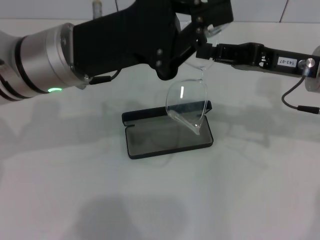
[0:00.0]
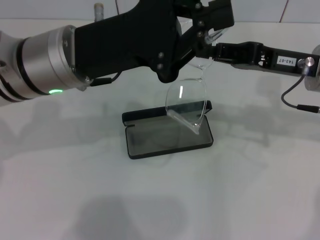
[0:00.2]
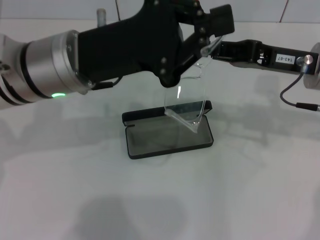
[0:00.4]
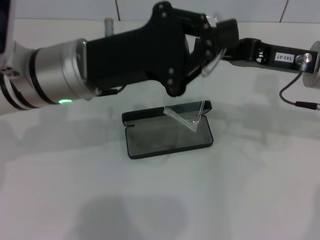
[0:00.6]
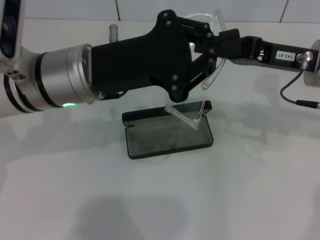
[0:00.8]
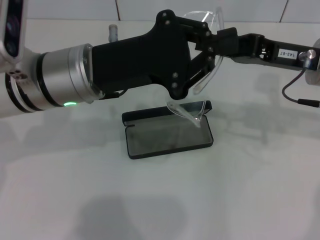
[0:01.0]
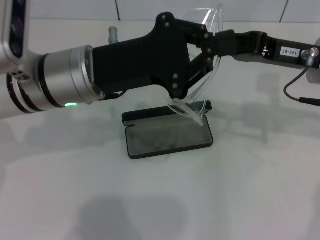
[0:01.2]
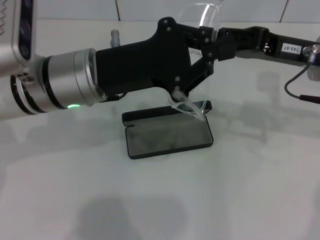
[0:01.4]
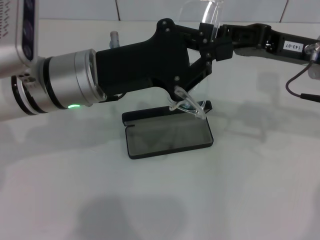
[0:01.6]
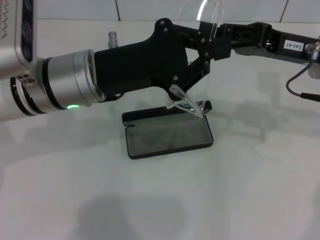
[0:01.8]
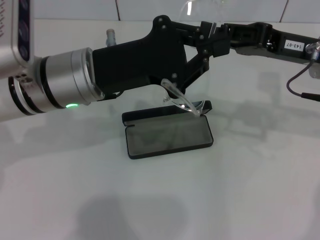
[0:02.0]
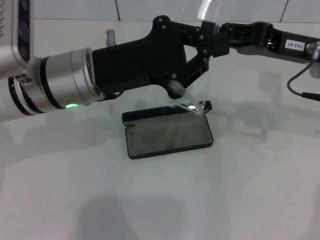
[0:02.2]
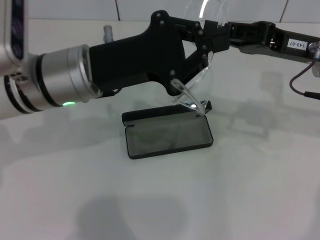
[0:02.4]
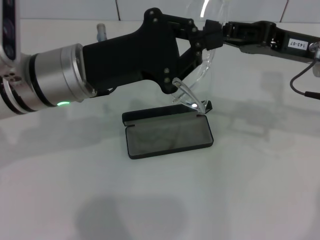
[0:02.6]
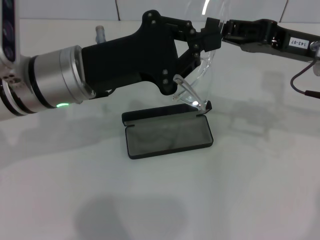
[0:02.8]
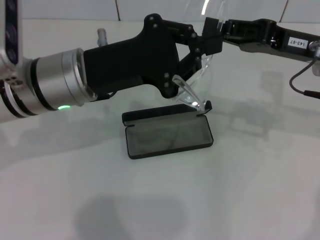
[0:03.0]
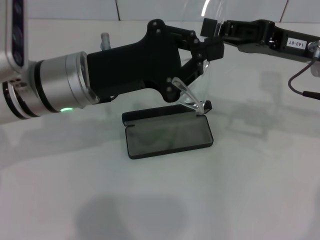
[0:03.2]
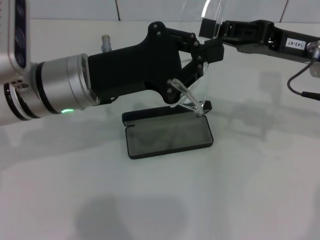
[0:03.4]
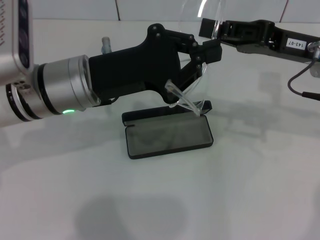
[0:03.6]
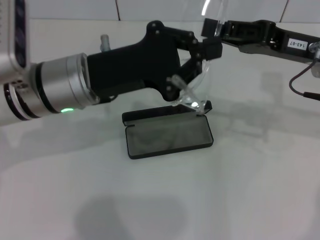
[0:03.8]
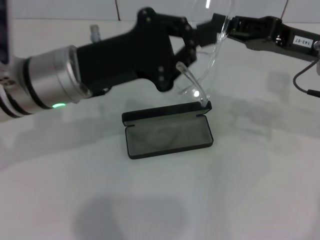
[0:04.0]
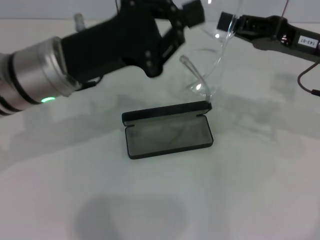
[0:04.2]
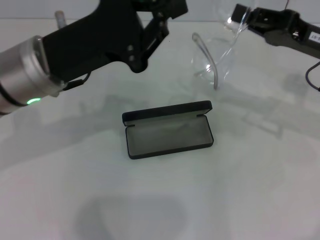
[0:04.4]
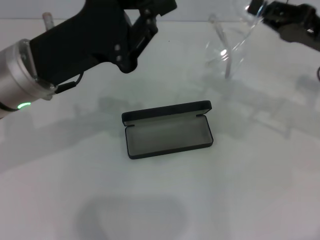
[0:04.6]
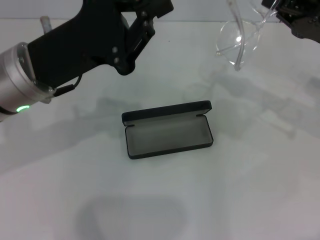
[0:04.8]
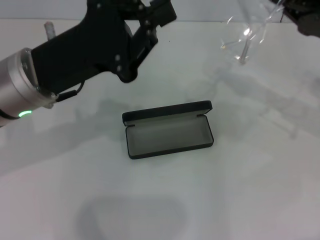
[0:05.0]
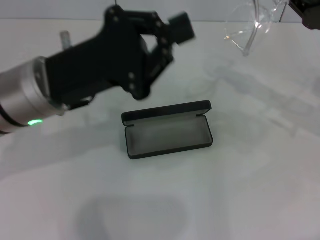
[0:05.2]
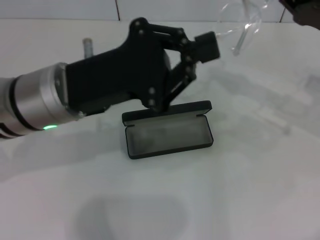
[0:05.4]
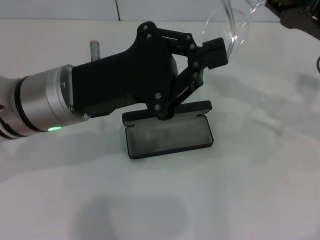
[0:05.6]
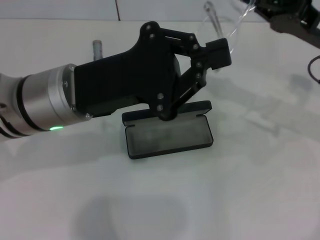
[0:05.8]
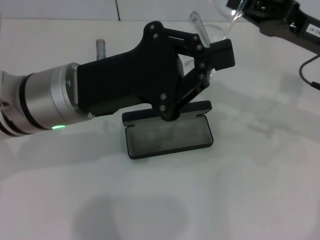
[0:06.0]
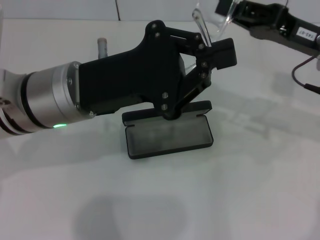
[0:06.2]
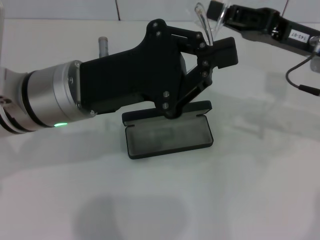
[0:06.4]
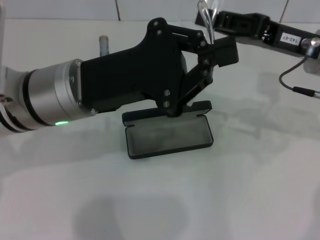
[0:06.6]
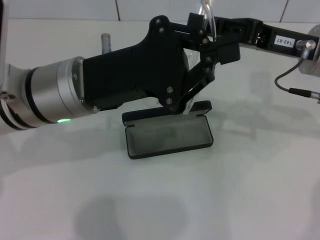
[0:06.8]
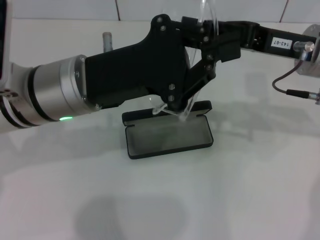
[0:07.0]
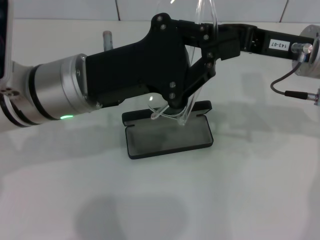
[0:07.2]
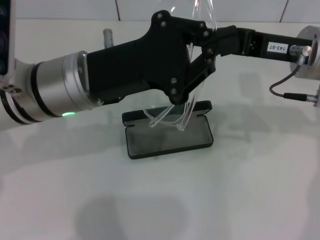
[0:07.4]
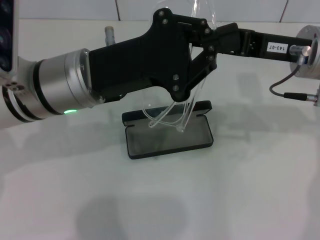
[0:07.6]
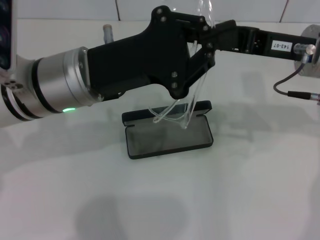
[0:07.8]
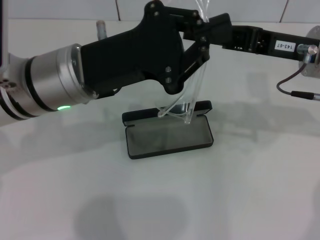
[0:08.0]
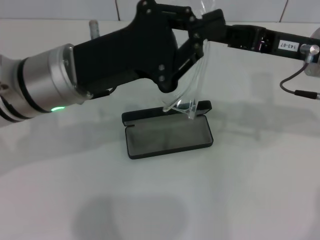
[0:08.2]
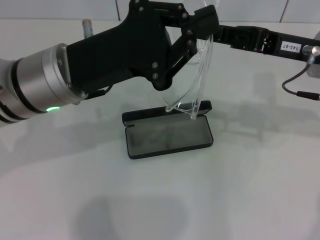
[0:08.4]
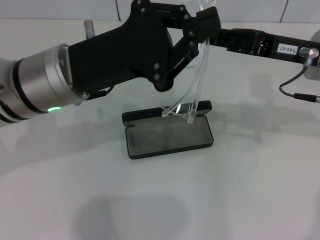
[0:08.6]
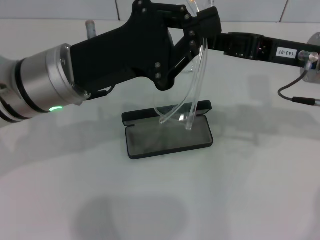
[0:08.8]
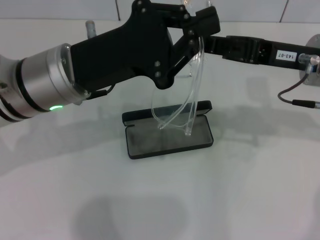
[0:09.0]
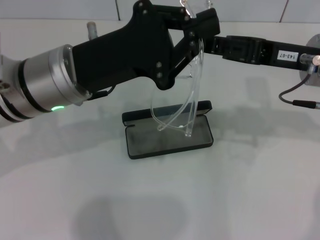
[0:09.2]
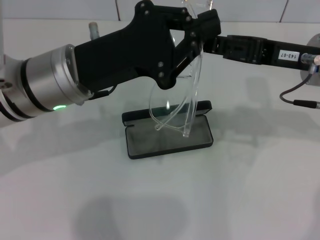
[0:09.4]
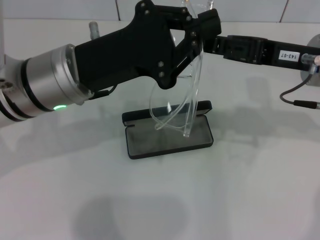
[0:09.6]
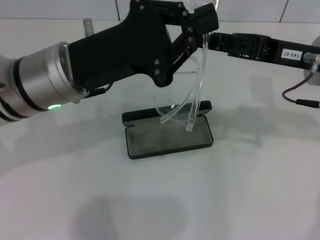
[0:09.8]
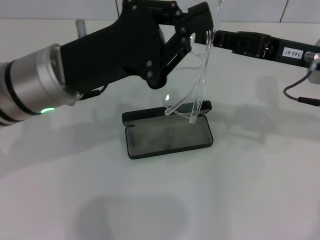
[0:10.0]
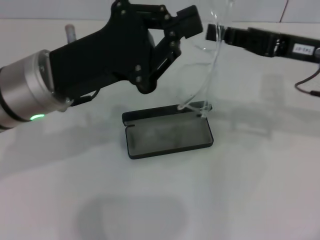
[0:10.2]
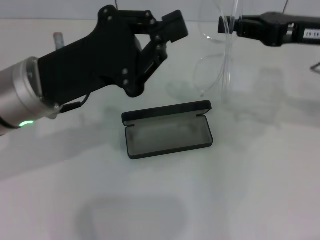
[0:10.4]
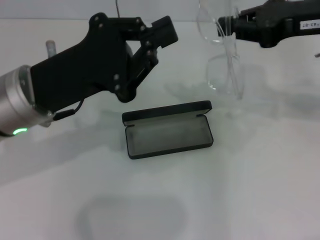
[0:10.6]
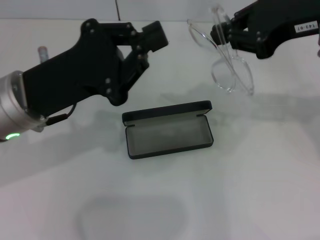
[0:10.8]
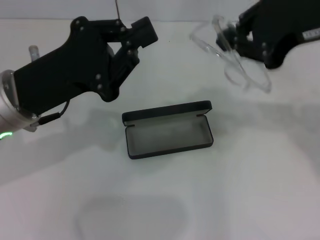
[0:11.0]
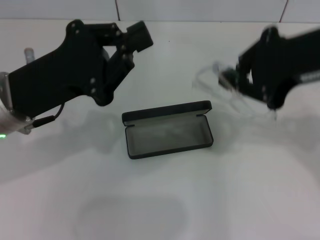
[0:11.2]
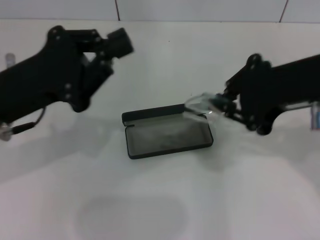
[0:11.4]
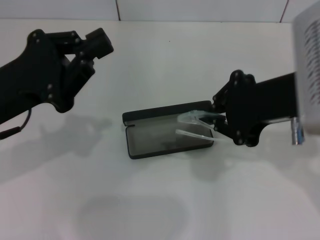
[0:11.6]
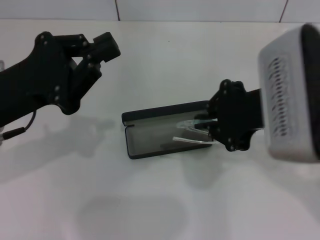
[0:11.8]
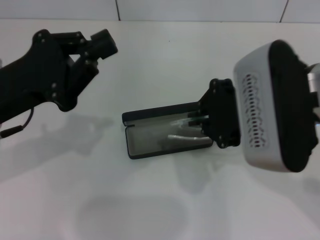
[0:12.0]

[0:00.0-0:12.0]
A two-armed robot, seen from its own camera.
Step, 0:00.0 to 0:09.8: Fold the frame with your left hand.
0:01.6 to 0:03.0: The two grippers keep their place.
0:06.0 to 0:07.6: The right gripper shifts approximately 5 cm to the left.
0:09.0 to 0:10.4: The right gripper changes place by about 5 cm.
0:10.4 to 0:12.0: The right gripper moves to the left and backward, about 15 cm, while the left gripper is displaced to the left by approximately 5 cm.

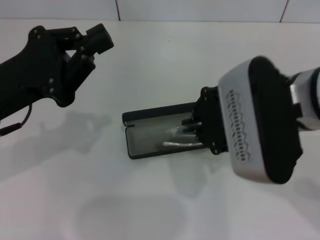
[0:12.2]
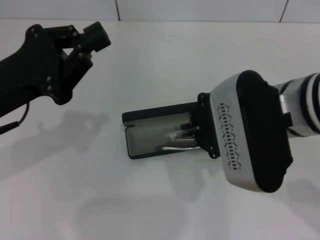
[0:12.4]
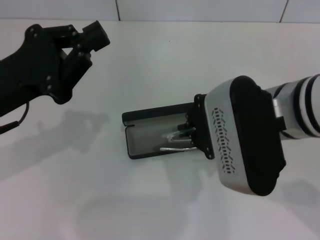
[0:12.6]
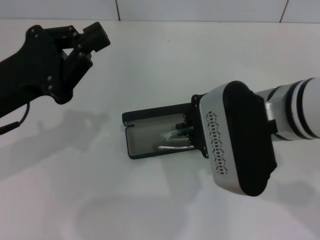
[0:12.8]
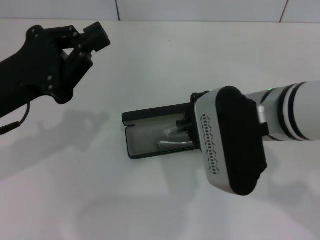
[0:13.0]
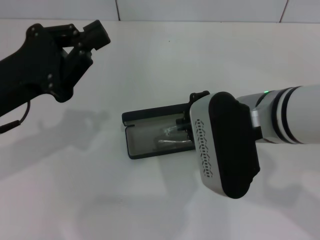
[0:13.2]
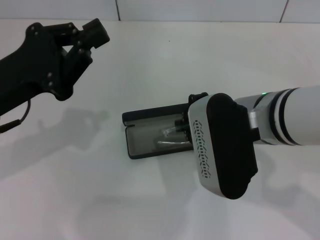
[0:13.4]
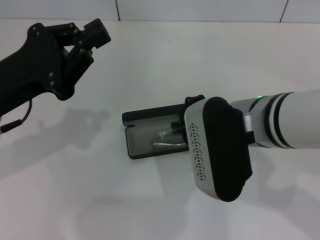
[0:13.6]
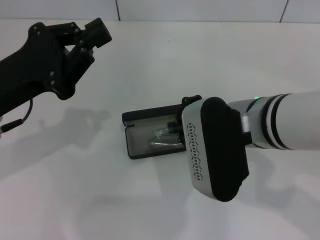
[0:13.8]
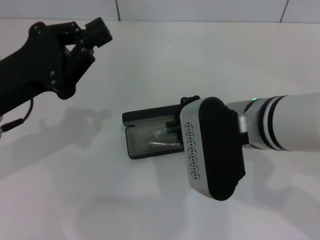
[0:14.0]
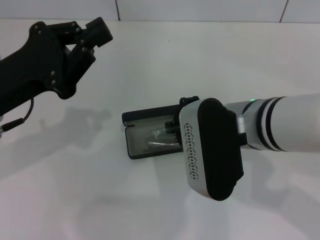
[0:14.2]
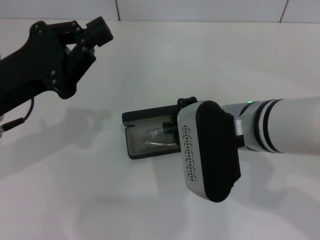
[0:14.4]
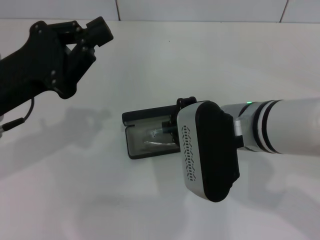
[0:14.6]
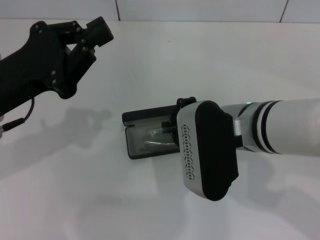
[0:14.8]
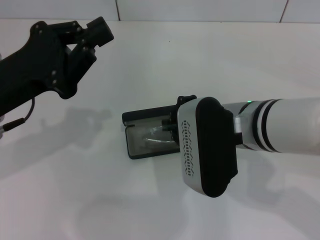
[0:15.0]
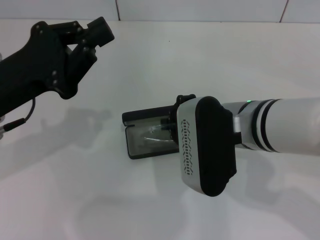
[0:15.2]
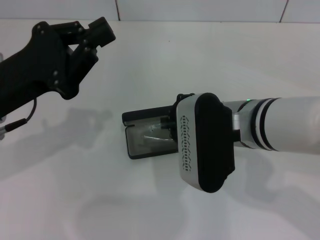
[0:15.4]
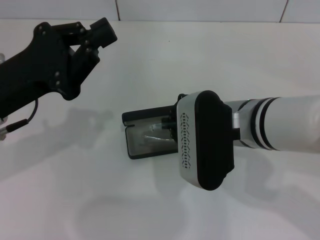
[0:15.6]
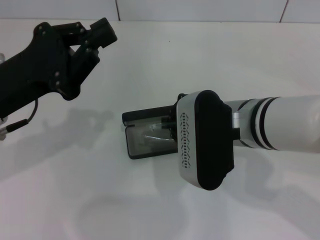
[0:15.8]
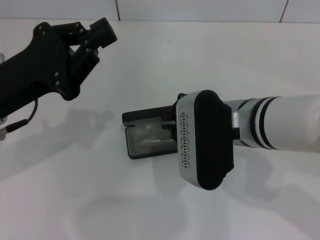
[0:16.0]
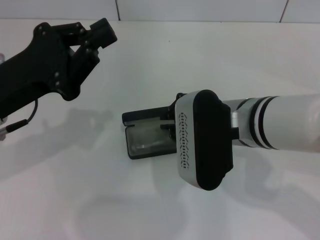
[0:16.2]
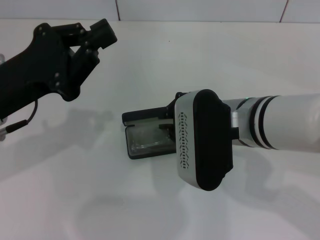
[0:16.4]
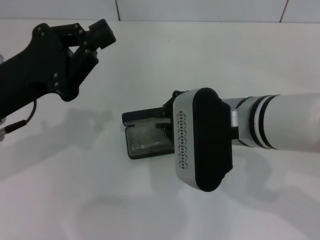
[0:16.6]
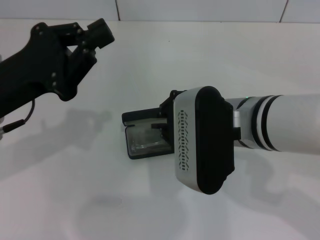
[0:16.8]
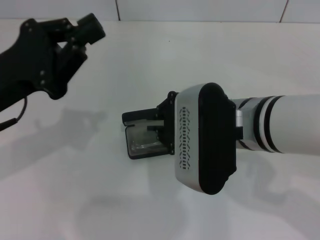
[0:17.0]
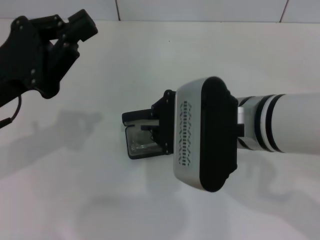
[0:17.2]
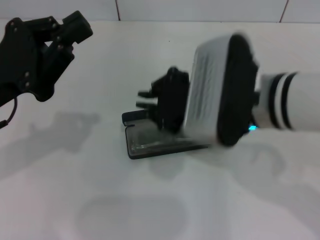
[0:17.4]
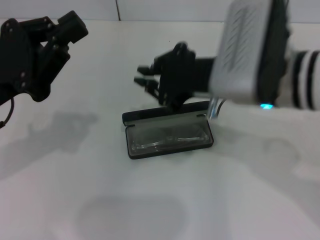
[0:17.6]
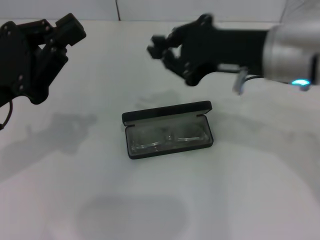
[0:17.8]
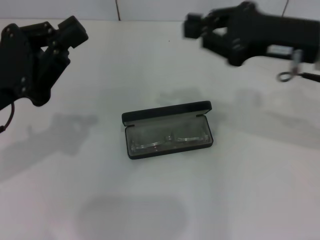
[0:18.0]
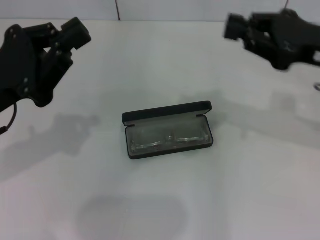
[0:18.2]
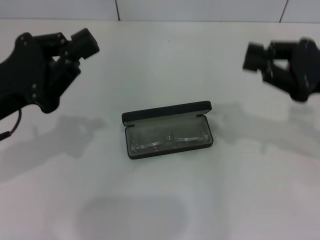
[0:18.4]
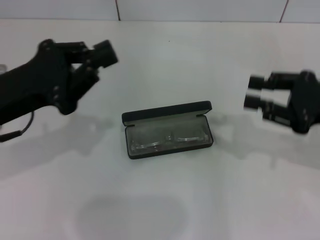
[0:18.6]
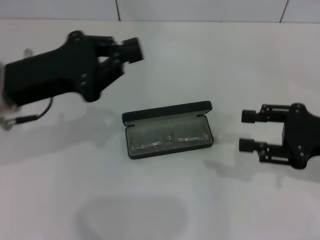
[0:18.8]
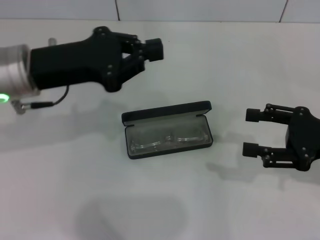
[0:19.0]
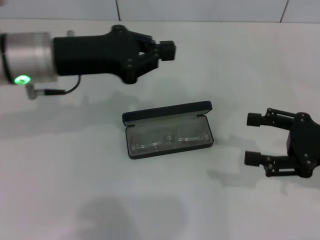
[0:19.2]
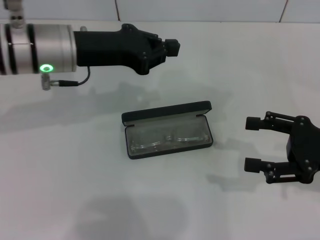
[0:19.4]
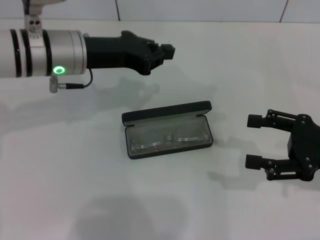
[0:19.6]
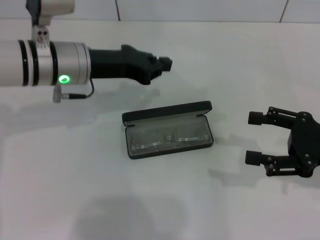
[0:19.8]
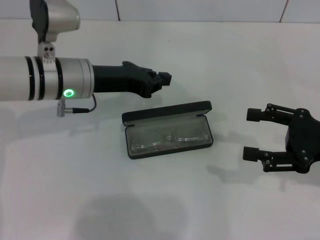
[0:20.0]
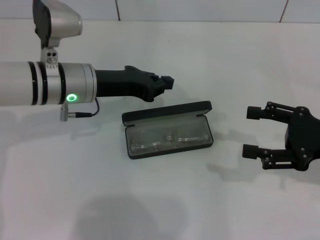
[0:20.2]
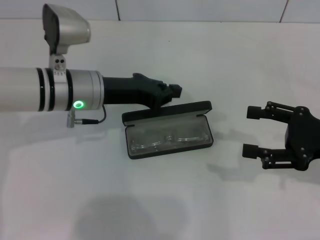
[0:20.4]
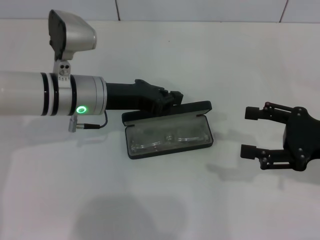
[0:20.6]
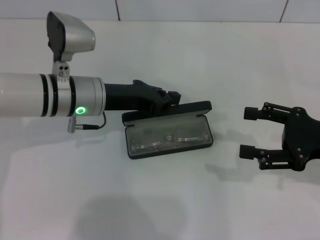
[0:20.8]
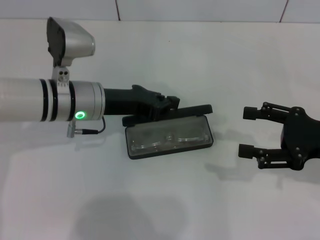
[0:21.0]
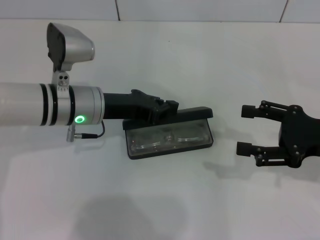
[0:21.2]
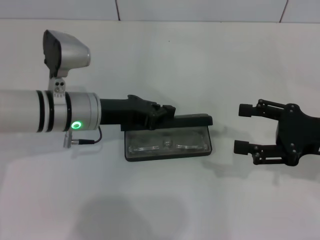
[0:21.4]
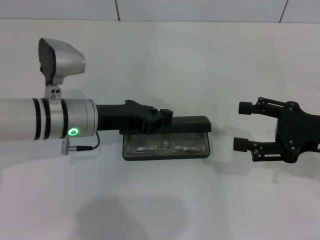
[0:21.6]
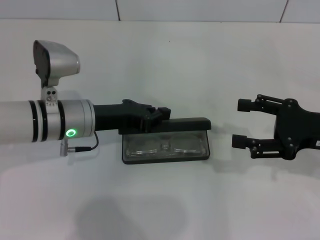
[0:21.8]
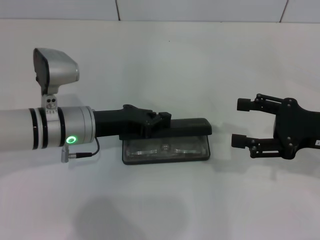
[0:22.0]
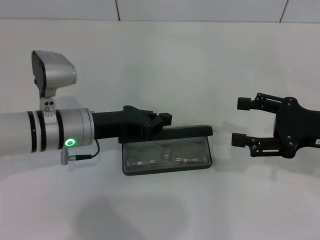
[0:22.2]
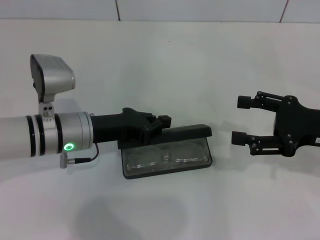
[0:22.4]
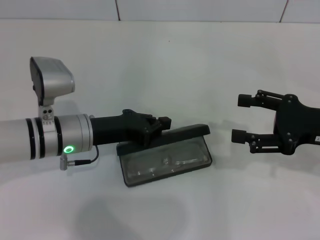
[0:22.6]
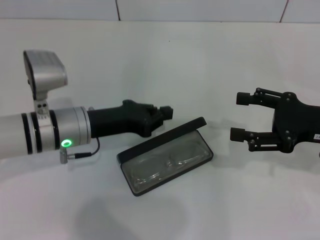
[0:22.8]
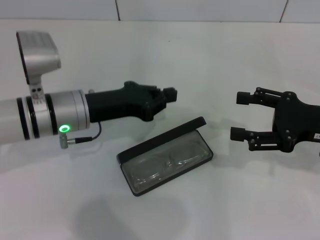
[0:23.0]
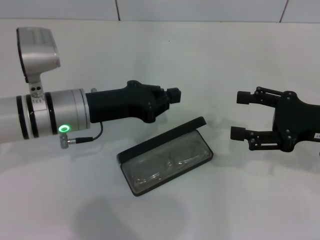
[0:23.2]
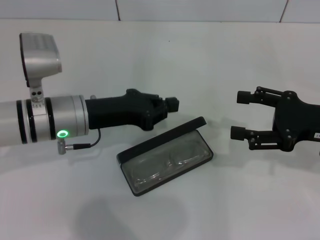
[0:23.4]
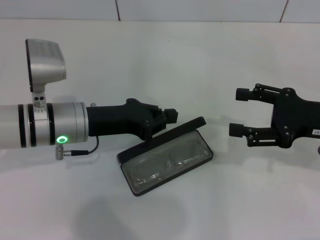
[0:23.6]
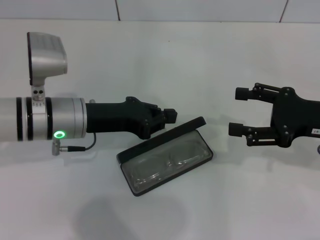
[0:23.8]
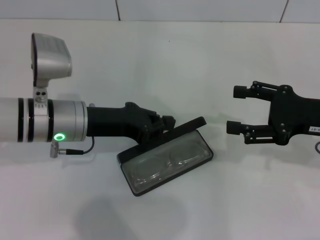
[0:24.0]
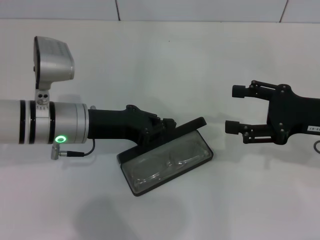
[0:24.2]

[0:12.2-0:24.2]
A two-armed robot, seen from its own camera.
Step, 0:12.2 to 0:16.6: Put the glasses into the case with your right hand.
0:12.2 to 0:13.8: The right gripper ends up approximately 5 cm from where it was.
0:13.8 to 0:15.2: The grippers stay close to where they were, moving slightly.
0:15.2 to 0:16.6: Both grippers stay about where they are.
0:16.6 to 0:18.2: The right gripper travels to the right by approximately 15 cm.
0:18.2 to 0:19.8: The right gripper shifts about 10 cm downward and backward, and opens. Meanwhile the left gripper goes some 15 cm forward and to the right.
0:19.8 to 0:21.2: The left gripper heads downward, covering some 5 cm.
0:22.6 to 0:24.2: The grippers make only small movements.
